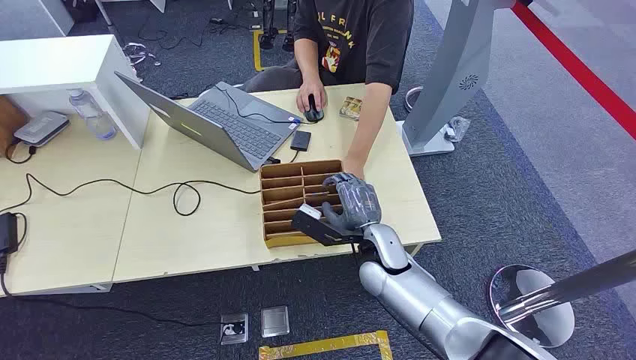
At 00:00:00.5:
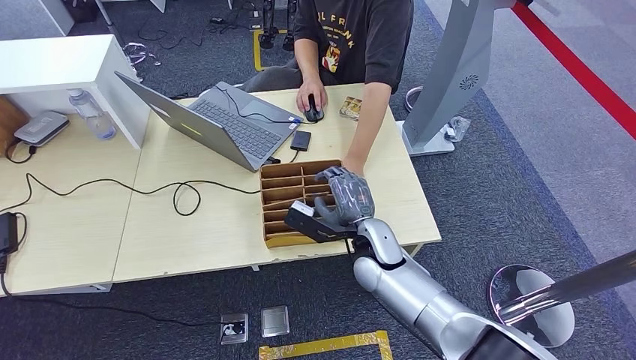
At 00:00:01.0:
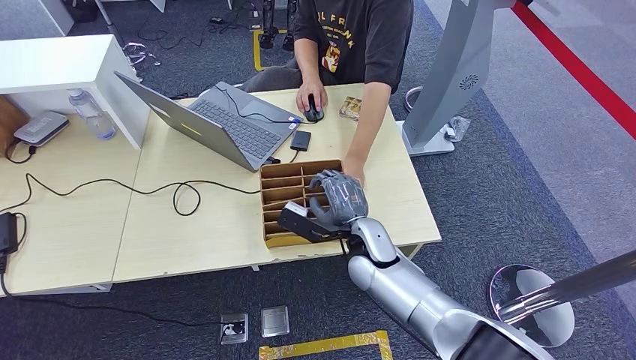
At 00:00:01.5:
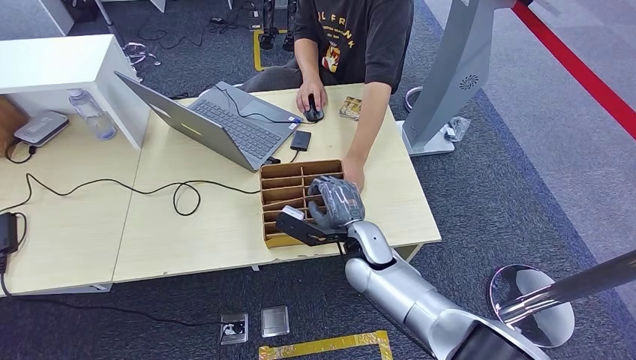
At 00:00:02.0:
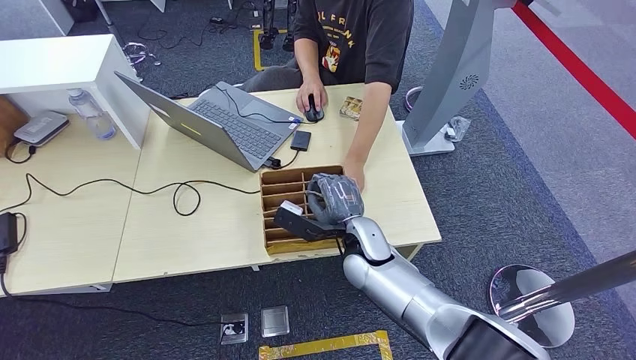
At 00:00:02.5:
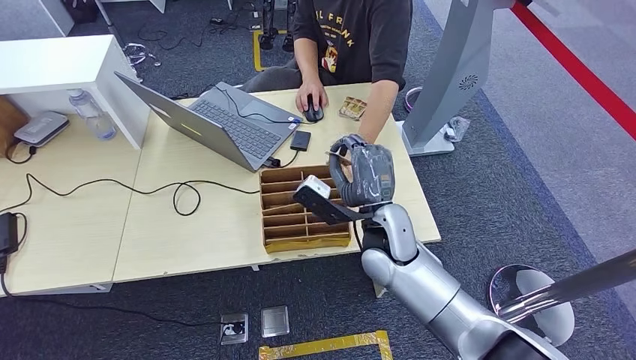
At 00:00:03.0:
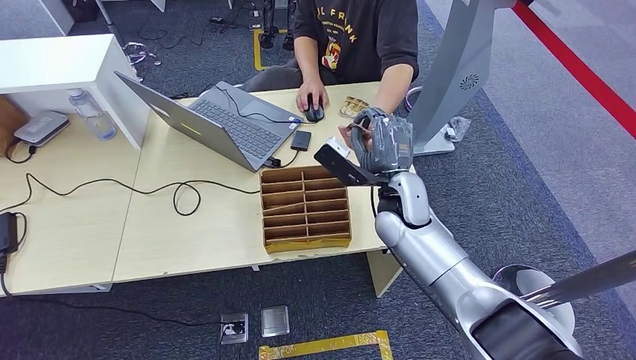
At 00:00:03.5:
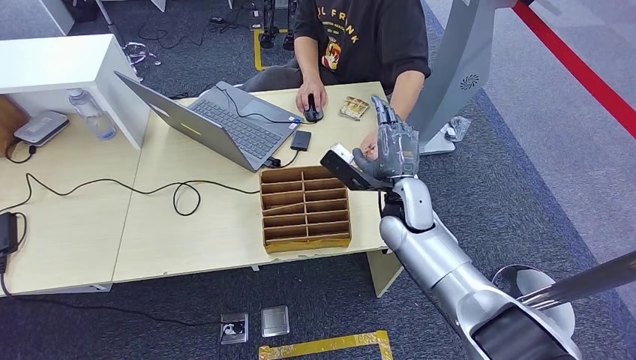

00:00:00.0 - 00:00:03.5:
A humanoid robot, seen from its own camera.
Step, 00:00:00.0 - 00:00:02.0: Pick up the room card from the card holder.
Step, 00:00:02.5 - 00:00:03.5: Hand the room card to the target.
00:00:02.0 - 00:00:03.5: The right hand goes roughly 10 cm to the right and upward.
